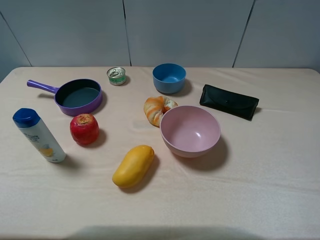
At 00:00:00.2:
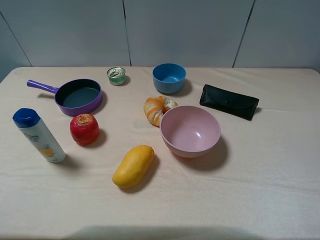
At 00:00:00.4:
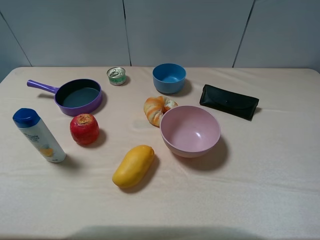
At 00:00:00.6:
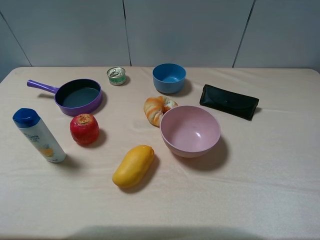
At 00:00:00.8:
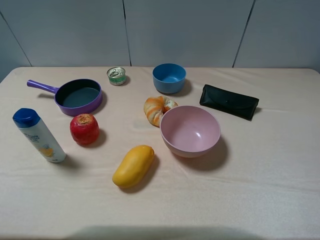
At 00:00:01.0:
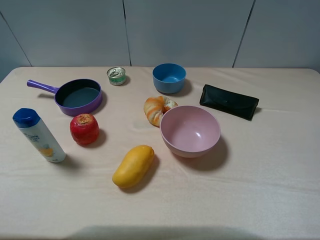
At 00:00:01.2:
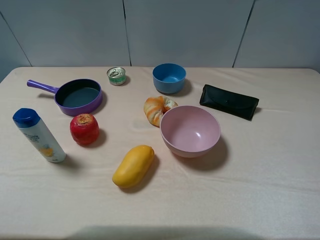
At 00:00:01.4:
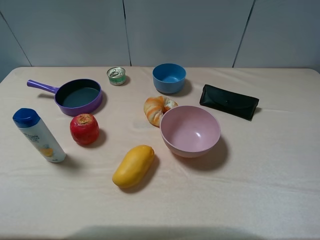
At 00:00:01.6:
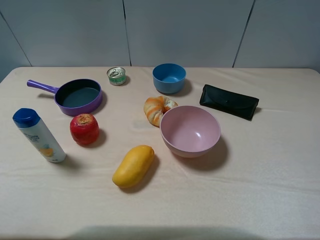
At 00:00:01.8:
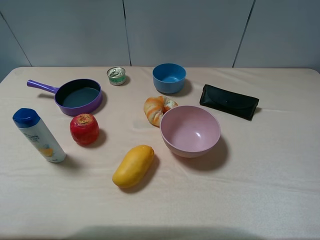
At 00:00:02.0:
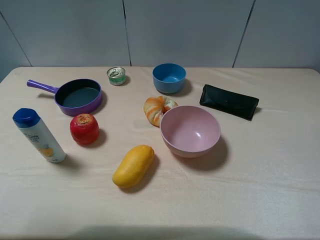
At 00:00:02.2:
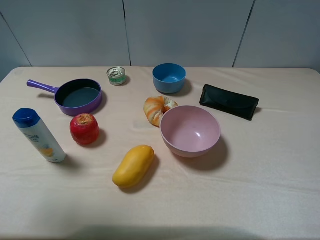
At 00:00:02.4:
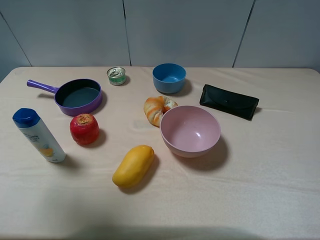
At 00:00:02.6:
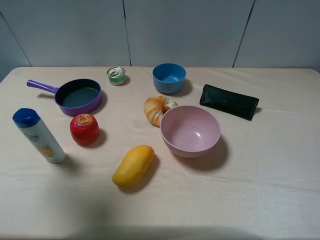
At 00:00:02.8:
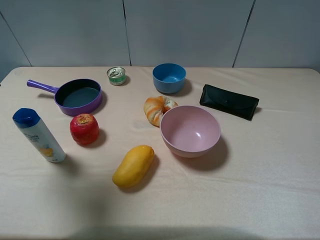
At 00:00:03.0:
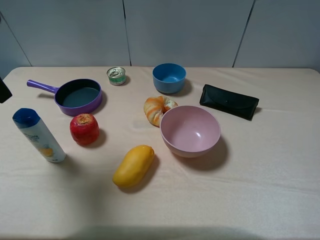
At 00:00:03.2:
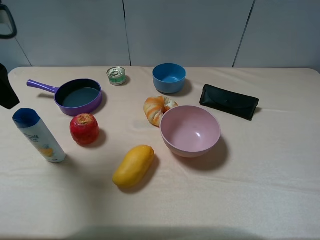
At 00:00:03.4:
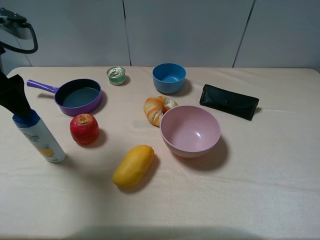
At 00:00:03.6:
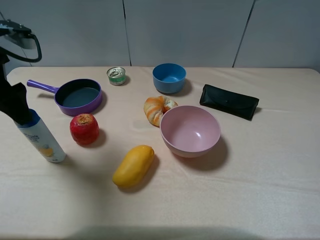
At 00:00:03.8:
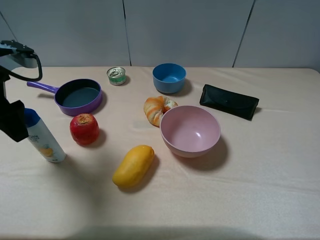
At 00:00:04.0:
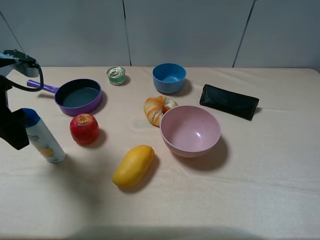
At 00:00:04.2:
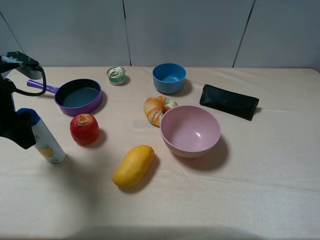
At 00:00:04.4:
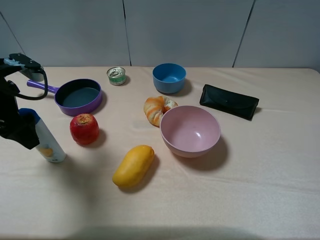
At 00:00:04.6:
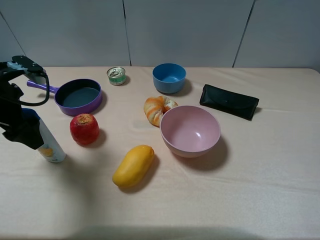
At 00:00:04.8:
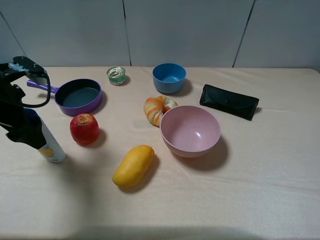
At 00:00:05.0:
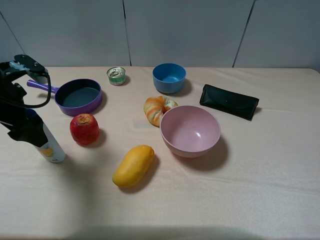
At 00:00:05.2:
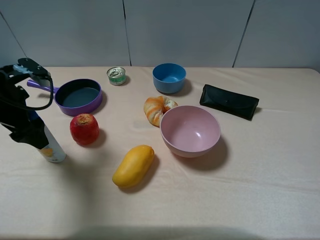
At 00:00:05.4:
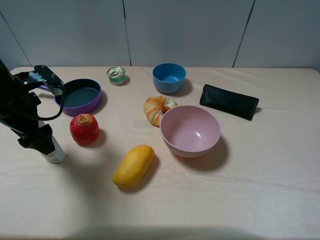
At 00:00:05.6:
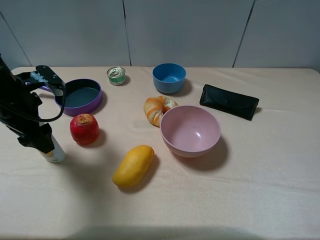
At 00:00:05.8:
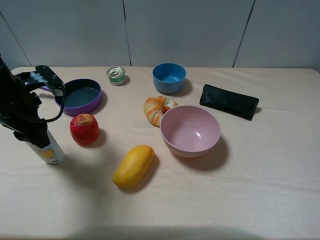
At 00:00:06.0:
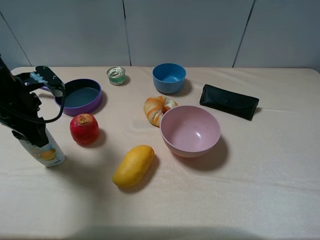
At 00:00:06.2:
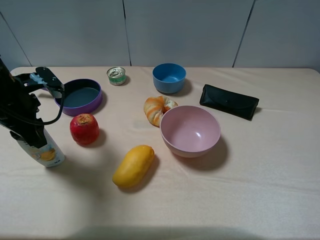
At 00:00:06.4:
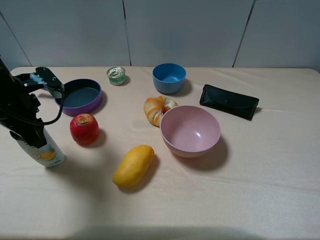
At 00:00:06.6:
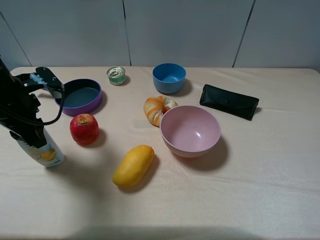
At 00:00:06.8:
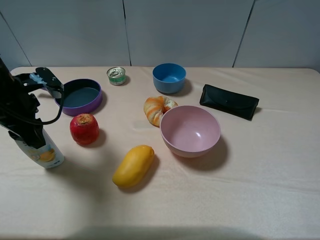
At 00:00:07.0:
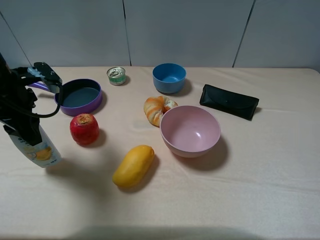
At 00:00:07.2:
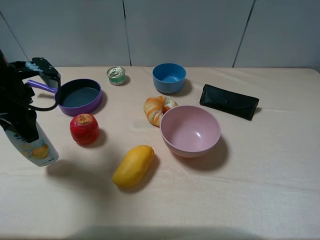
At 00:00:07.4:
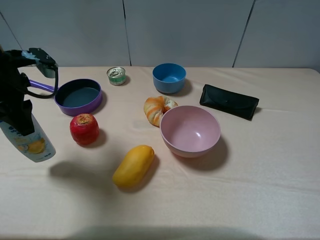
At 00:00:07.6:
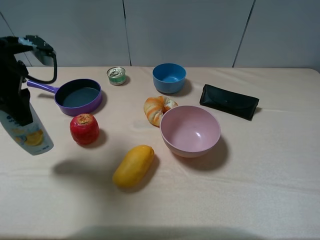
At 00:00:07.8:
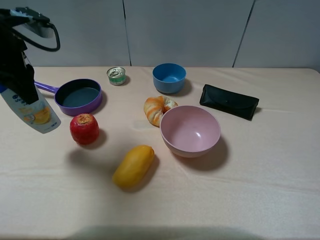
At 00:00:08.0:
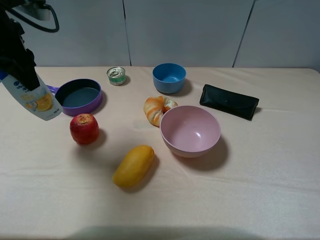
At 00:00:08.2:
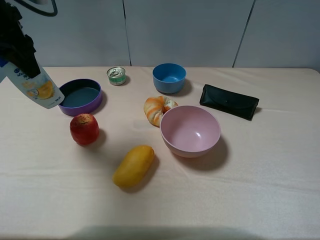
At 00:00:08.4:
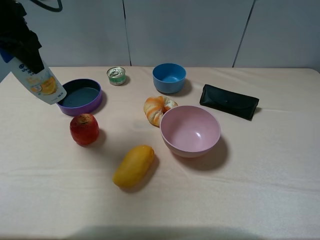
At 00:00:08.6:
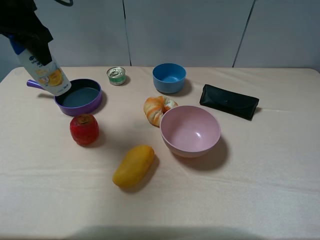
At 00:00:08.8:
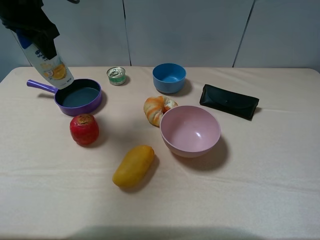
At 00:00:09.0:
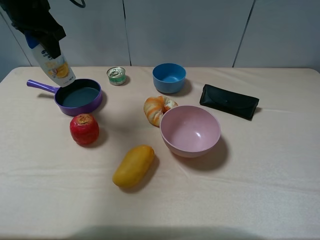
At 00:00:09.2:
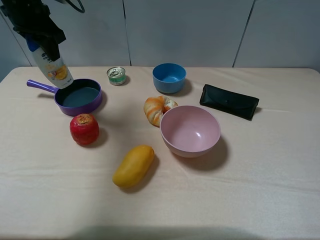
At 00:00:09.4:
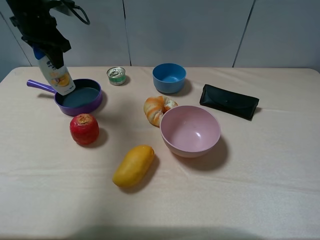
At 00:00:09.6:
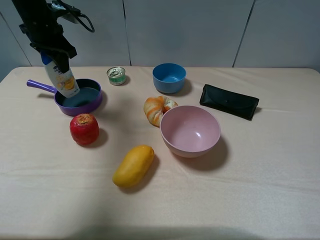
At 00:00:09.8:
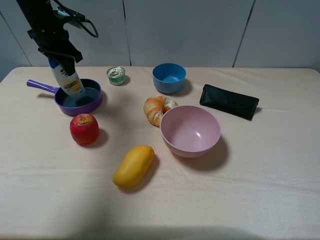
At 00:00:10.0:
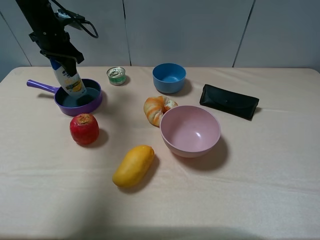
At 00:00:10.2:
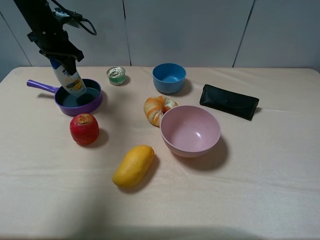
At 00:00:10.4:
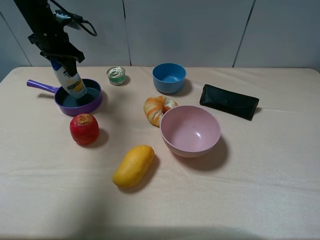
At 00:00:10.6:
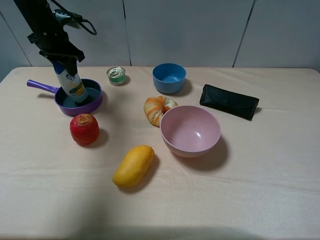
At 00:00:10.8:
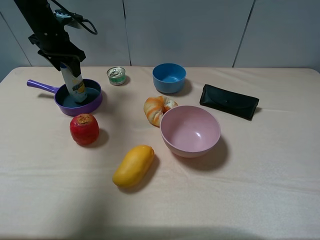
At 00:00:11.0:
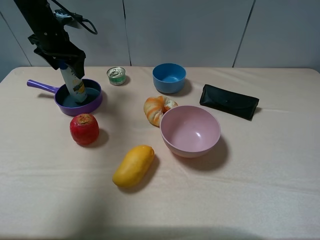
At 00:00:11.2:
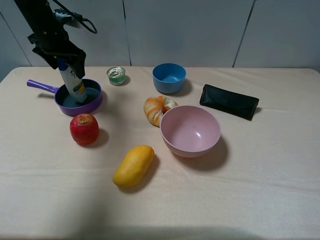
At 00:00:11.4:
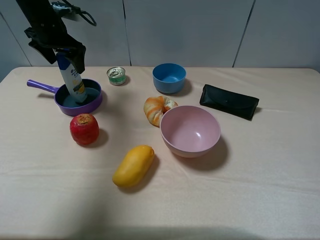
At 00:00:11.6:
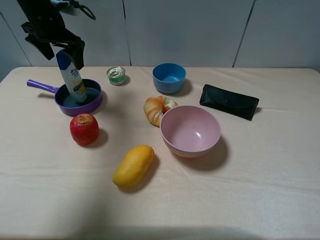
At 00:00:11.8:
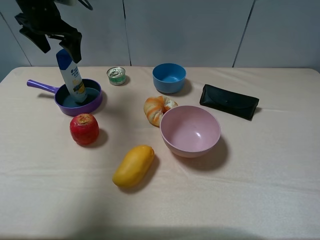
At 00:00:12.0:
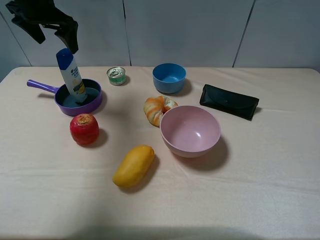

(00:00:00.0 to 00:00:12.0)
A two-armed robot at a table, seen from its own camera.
Task of the whole recording: pick up an item with a gripper and place it in a random container on the table.
Step, 00:00:00.0 - 00:00:06.2: Grasp the shampoo with the left gripper.
Step, 00:00:06.4 - 00:00:11.2: Place the shampoo into the blue bowl with the left gripper.
00:00:01.6 - 00:00:03.0: The left gripper moves forward, roughly 20 cm.
00:00:03.0 - 00:00:04.4: The left gripper shifts some 10 cm downward.
00:00:04.4 - 00:00:06.0: The left gripper closes up.
00:00:06.0 - 00:00:07.6: The left gripper goes some 5 cm upward.
00:00:07.6 - 00:00:09.0: The left gripper travels forward by some 10 cm.
00:00:09.0 - 00:00:10.4: The left gripper heads downward and forward, covering about 10 cm.
00:00:10.4 - 00:00:12.0: The left gripper shifts roughly 10 cm upward, and opens its fingers.

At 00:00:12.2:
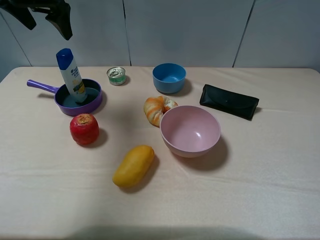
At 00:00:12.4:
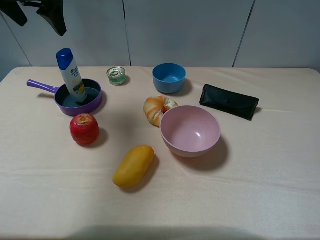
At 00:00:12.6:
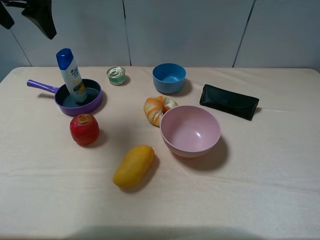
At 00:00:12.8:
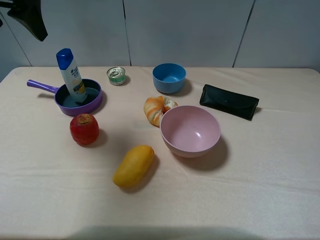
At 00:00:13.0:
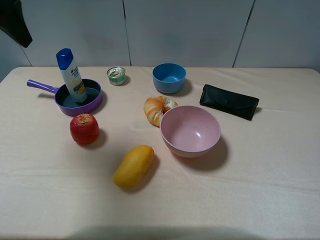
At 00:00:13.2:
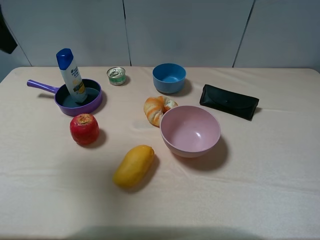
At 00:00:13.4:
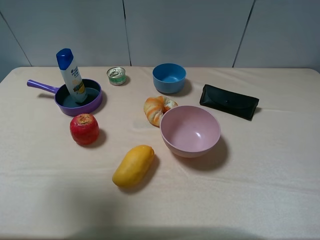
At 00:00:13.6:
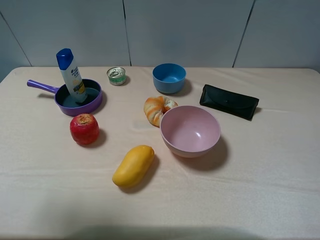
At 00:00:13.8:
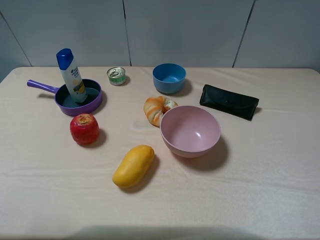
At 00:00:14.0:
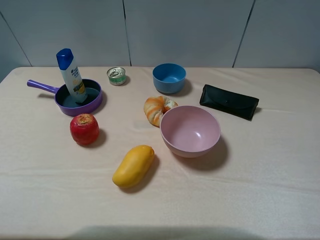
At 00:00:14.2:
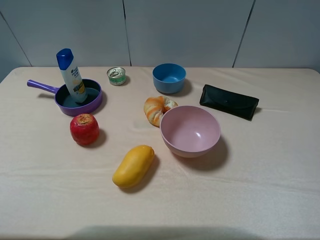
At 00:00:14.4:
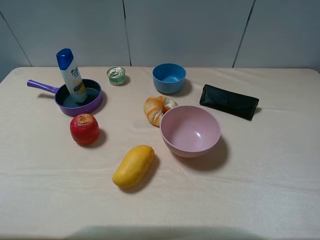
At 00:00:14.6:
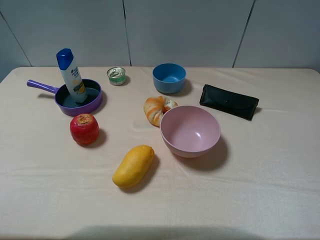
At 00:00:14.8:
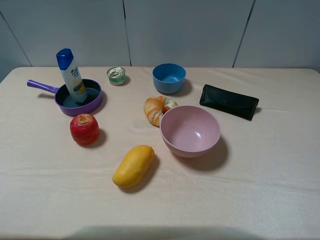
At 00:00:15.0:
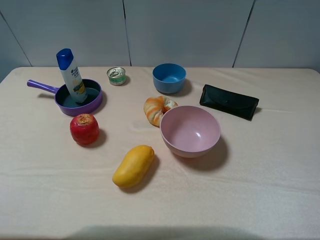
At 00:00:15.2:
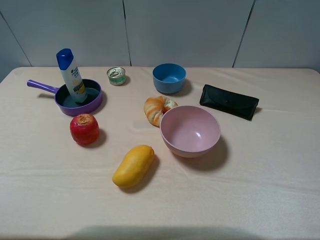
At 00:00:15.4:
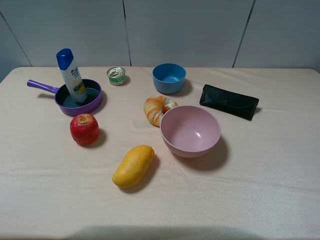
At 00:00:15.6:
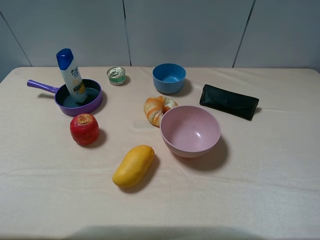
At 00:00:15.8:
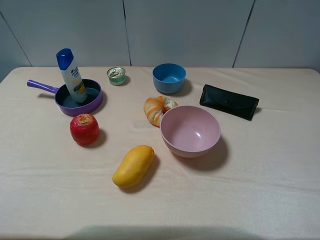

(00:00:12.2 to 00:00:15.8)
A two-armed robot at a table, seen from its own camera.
Task of the whole recording: pick up an item with a gripper and place it in a random container on the table.
00:00:12.2 - 00:00:14.0: The left gripper travels backward by roughly 40 cm.
